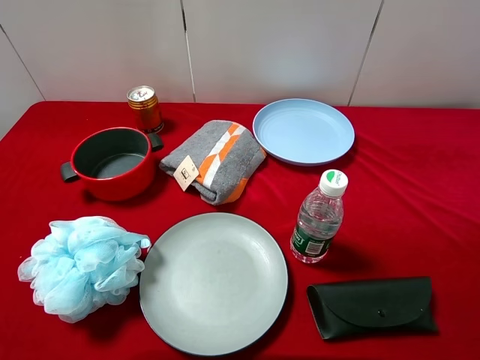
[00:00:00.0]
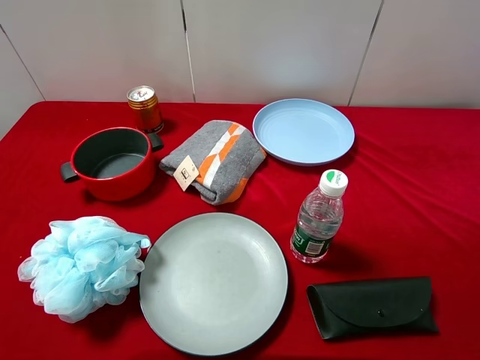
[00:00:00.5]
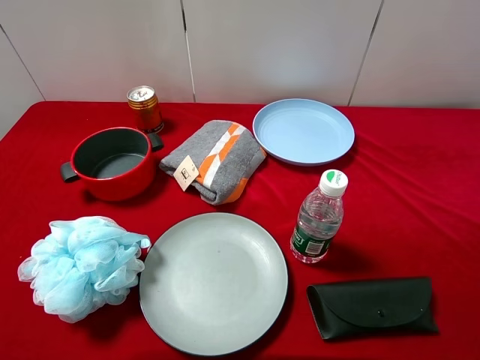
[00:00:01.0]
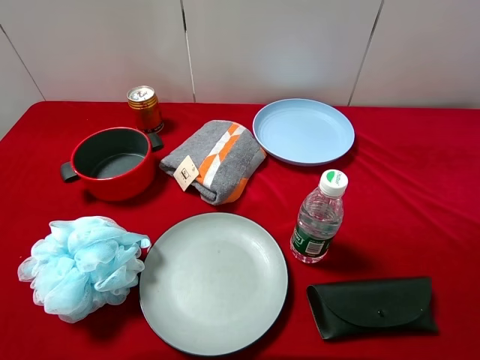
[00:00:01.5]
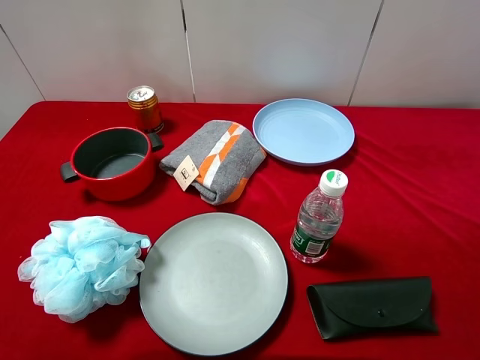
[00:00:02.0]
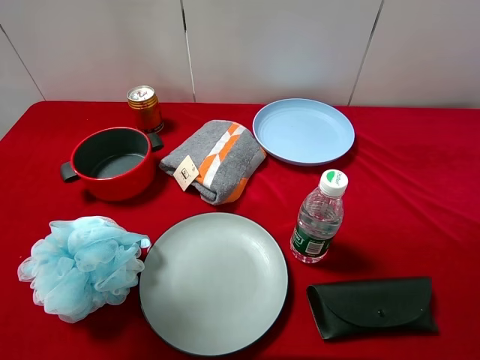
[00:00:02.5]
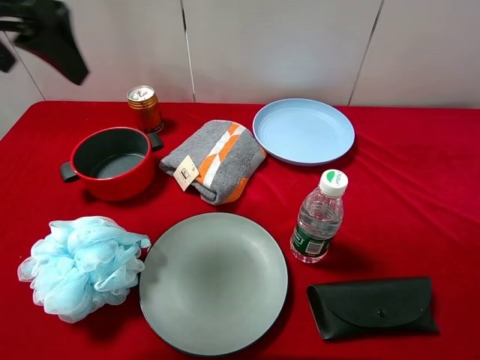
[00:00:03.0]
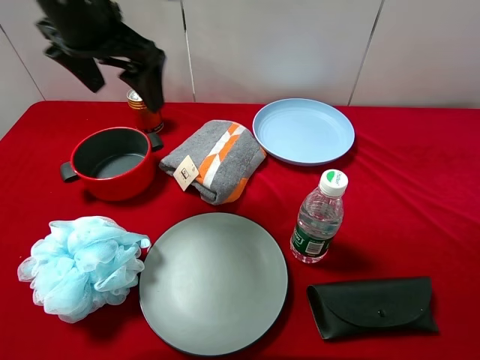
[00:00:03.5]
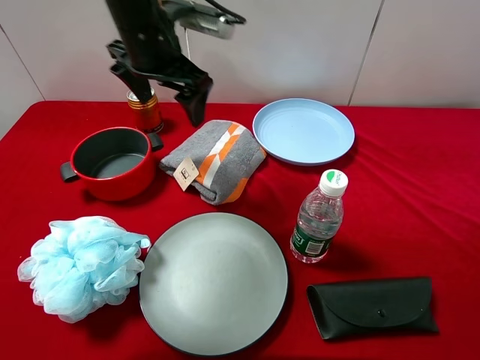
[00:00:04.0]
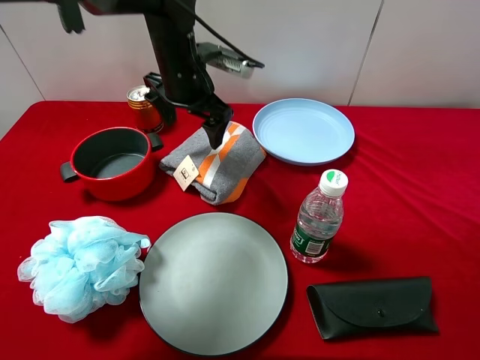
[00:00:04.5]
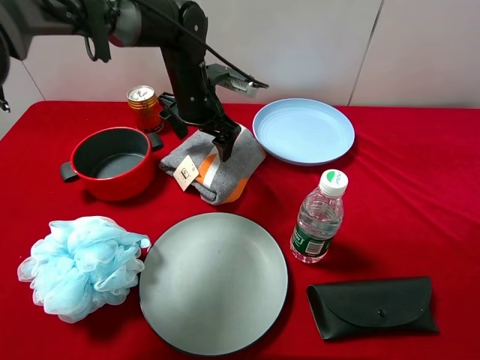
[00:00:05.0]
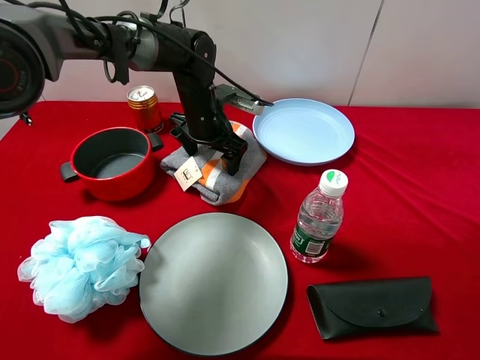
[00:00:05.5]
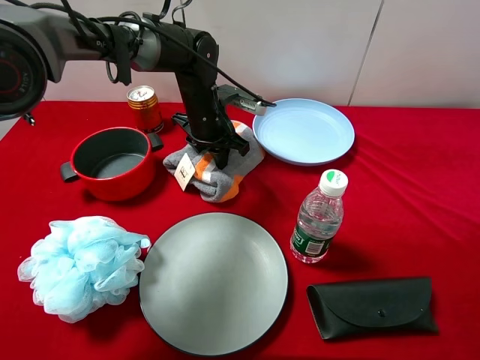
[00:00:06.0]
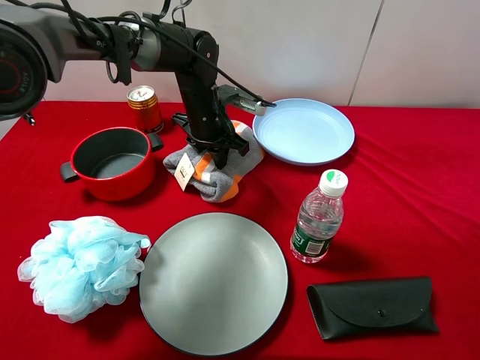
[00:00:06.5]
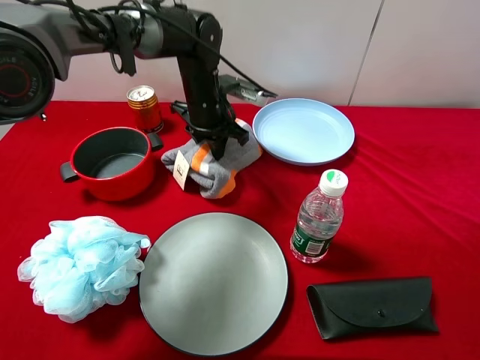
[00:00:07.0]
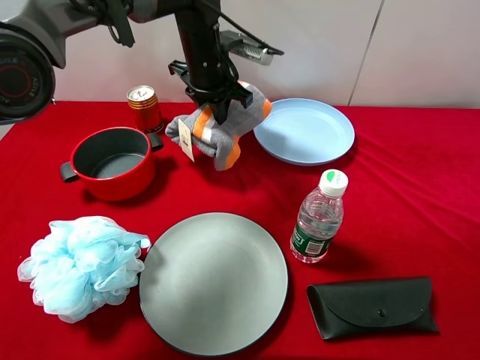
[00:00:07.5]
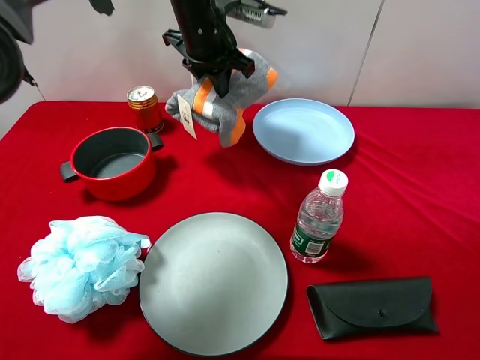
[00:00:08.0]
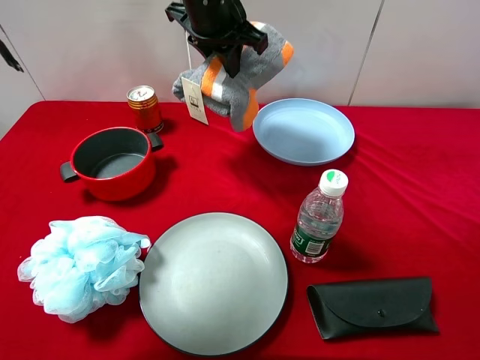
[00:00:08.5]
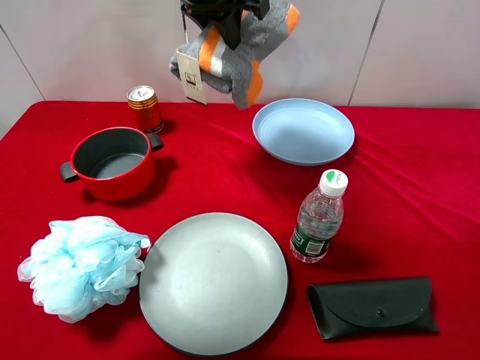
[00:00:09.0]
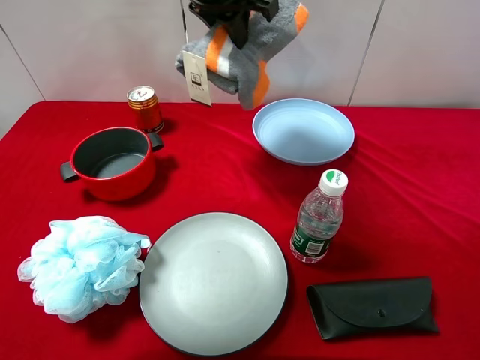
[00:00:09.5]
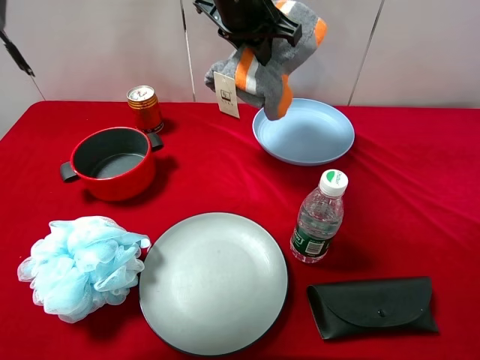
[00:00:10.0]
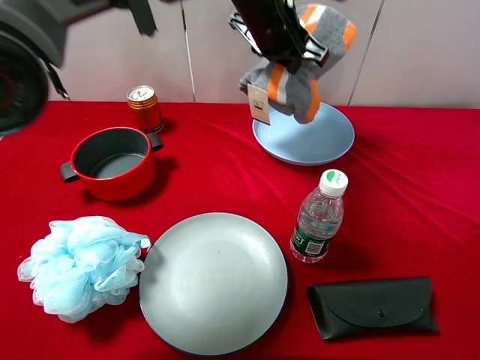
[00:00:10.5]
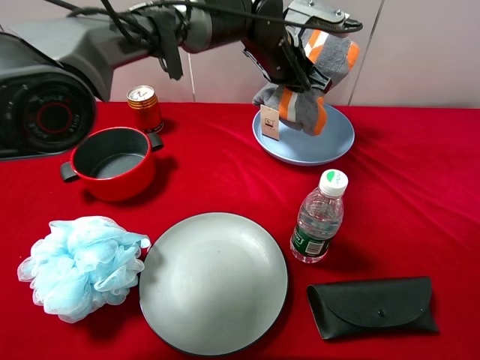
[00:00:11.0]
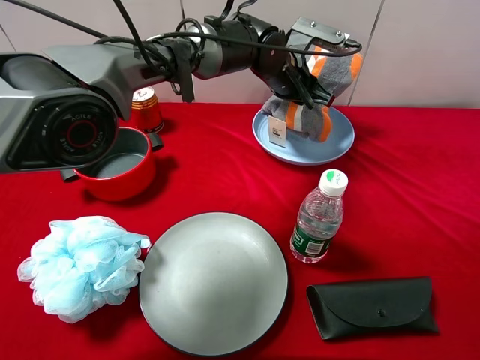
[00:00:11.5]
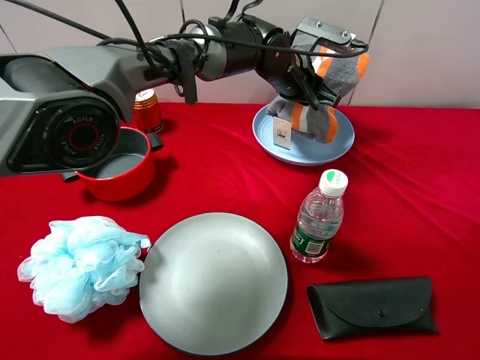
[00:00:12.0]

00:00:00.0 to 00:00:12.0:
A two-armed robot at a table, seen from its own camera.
Task of the whole recording: pick up an item with a gripper and place it in a random container on the desktop.
00:00:02.0 to 00:00:04.0: The left gripper is displaced forward, to the right and downward by approximately 35 cm.
00:00:04.0 to 00:00:06.0: The left gripper goes roughly 15 cm downward, and closes up.
00:00:06.0 to 00:00:08.0: The left gripper is displaced upward by approximately 15 cm.
00:00:08.0 to 00:00:10.0: The left gripper shifts by approximately 5 cm.
00:00:10.0 to 00:00:12.0: The left gripper shifts some 15 cm downward and to the right.

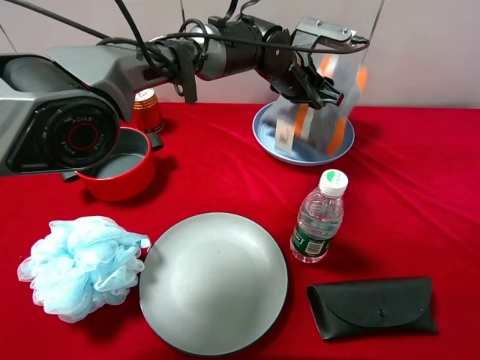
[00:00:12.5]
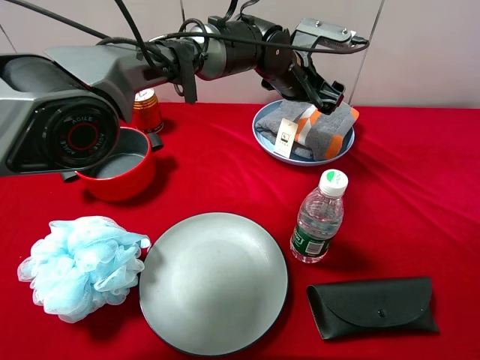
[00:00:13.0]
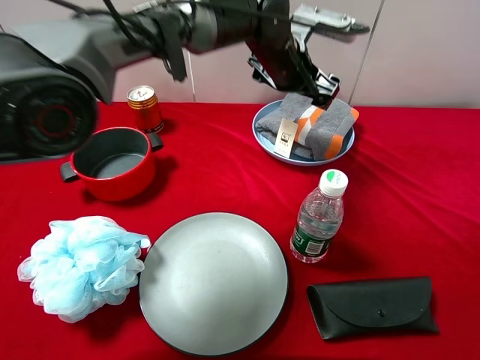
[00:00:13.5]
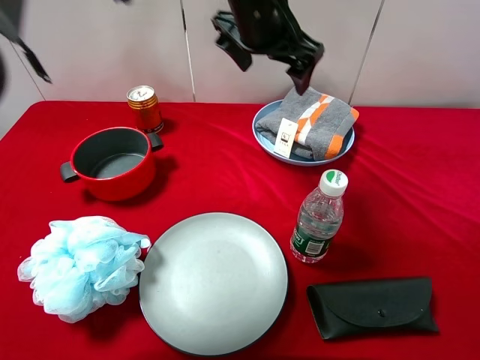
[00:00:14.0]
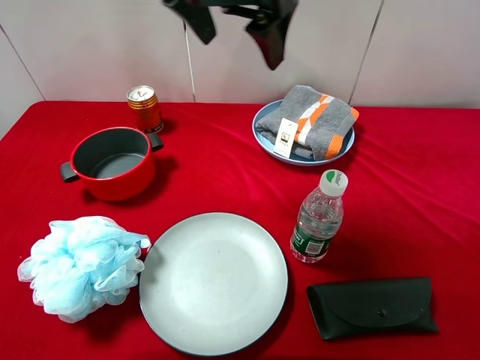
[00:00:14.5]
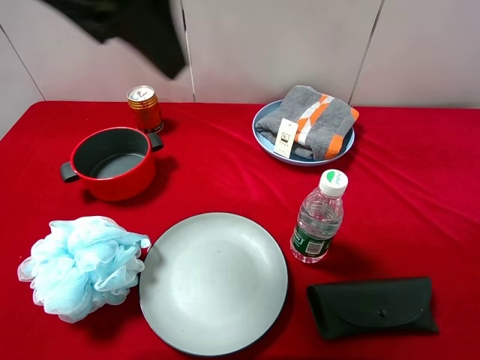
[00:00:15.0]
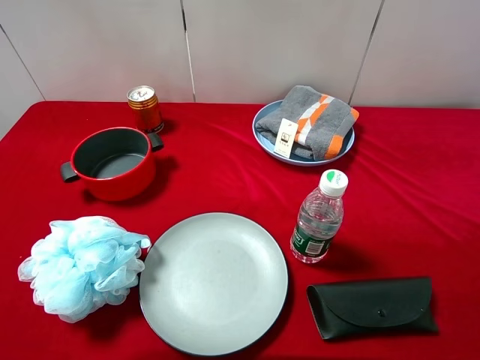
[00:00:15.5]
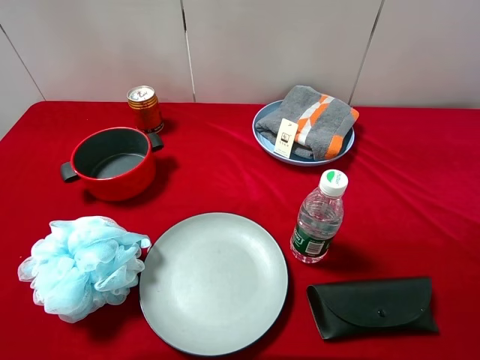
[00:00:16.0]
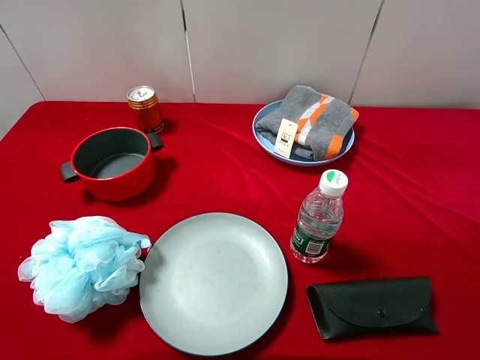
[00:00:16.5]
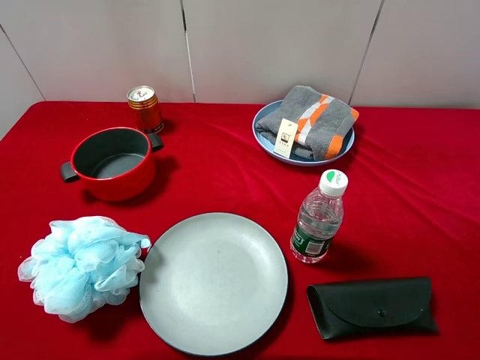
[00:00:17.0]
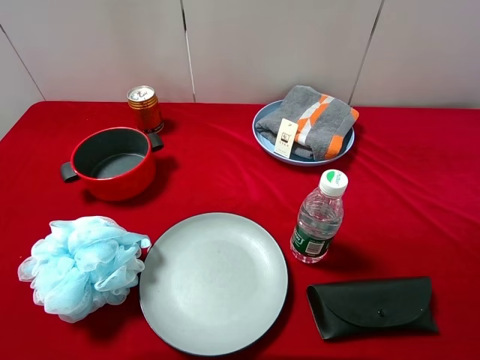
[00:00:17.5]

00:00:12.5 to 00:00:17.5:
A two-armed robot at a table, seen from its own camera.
Task of the whole recording: pick up an item with a gripper and place it in a random container on the desktop.
00:00:12.5 to 00:00:15.0: The left gripper moves backward, upward and to the left, roughly 40 cm, and opens its fingers.
00:00:15.0 to 00:00:17.5: The left gripper goes roughly 30 cm backward, to the left and downward.

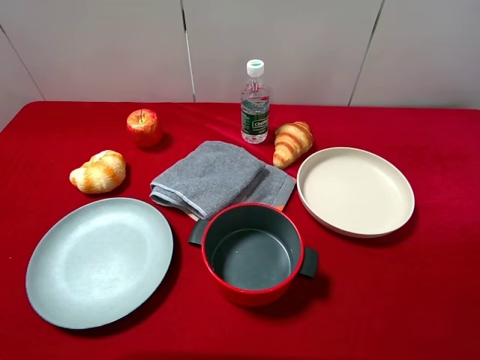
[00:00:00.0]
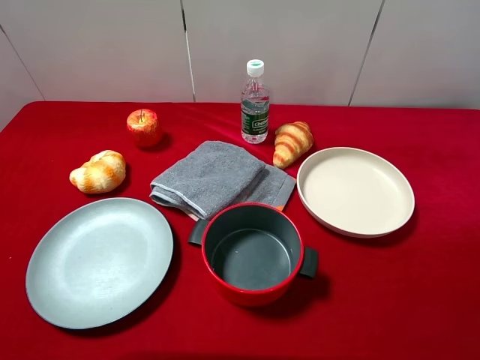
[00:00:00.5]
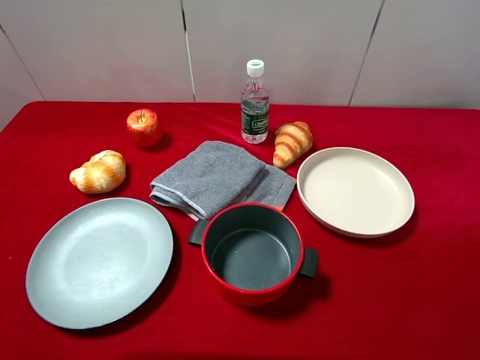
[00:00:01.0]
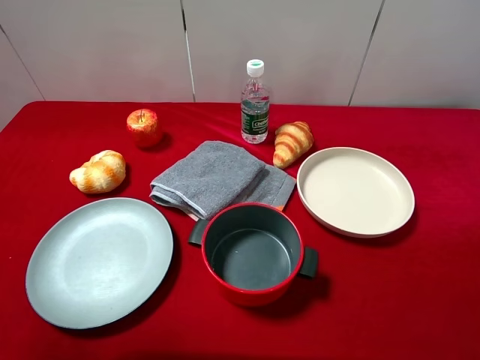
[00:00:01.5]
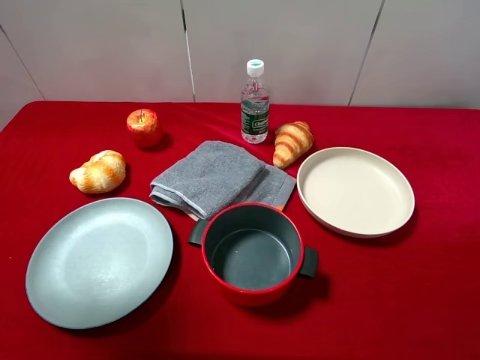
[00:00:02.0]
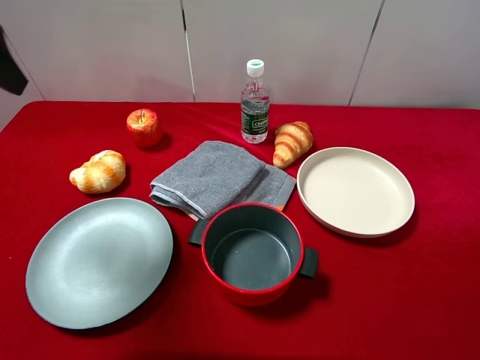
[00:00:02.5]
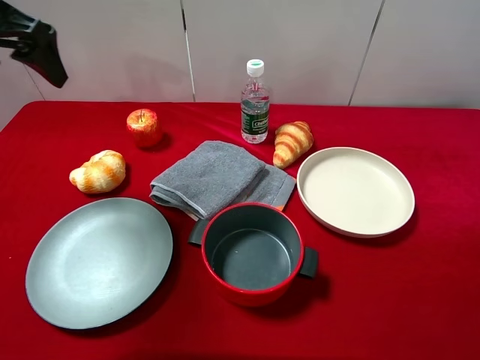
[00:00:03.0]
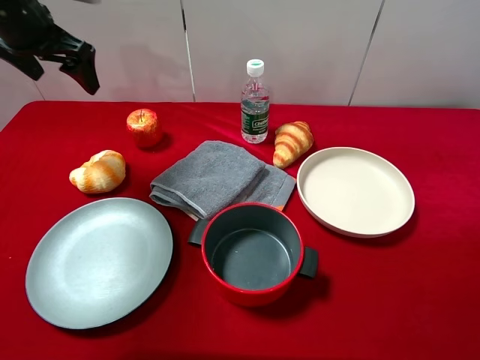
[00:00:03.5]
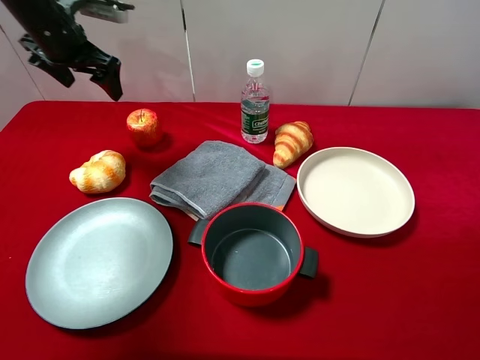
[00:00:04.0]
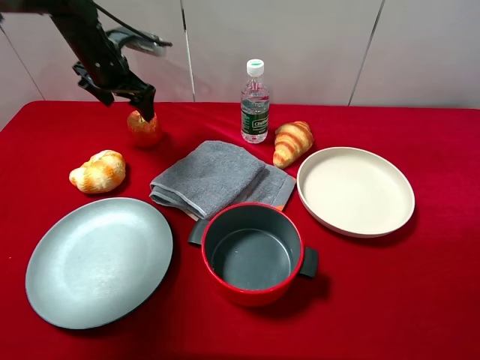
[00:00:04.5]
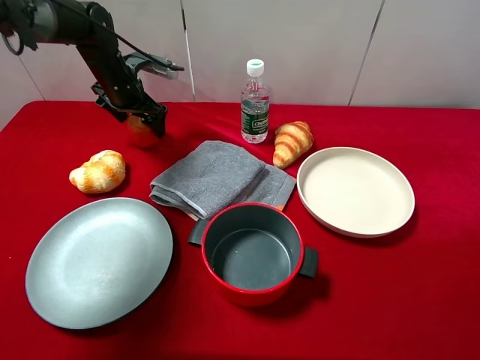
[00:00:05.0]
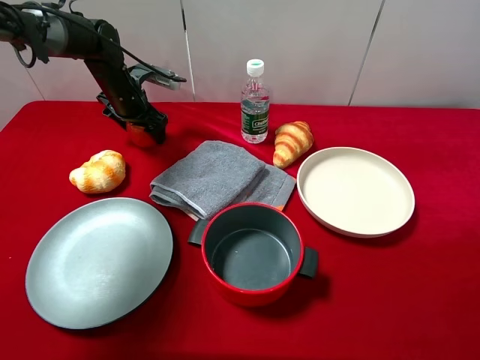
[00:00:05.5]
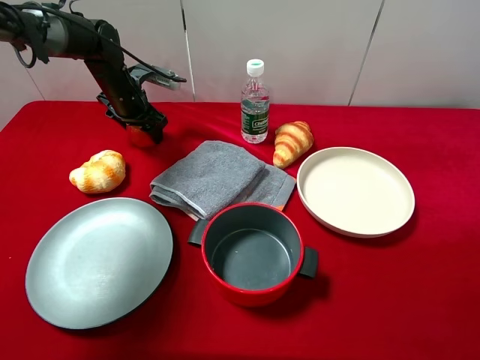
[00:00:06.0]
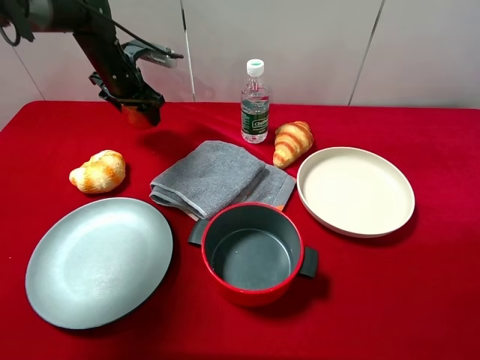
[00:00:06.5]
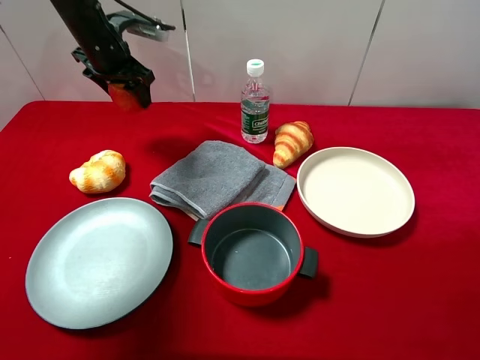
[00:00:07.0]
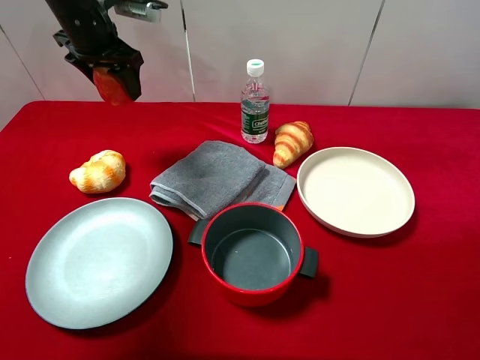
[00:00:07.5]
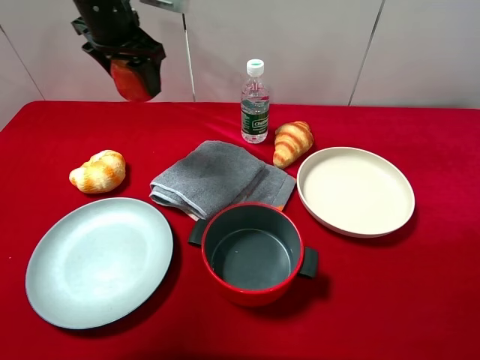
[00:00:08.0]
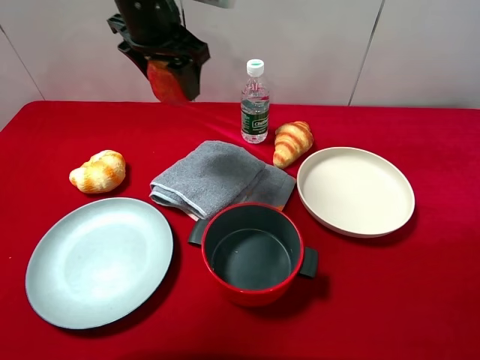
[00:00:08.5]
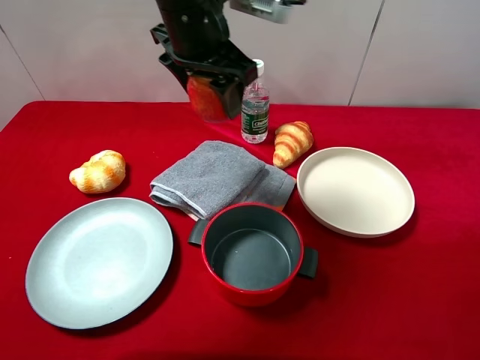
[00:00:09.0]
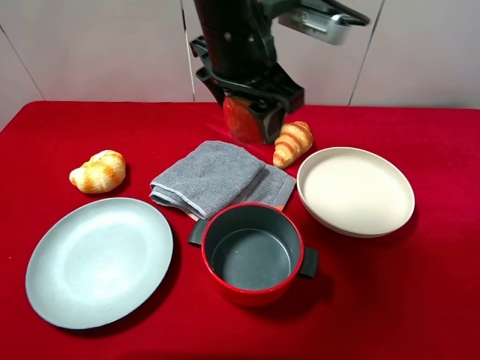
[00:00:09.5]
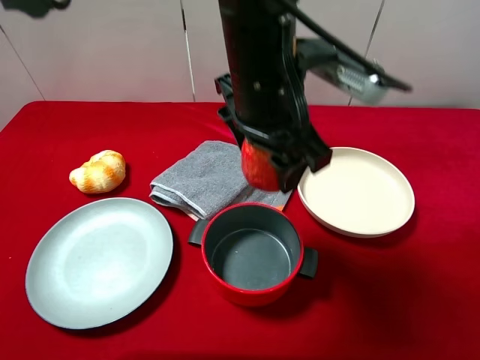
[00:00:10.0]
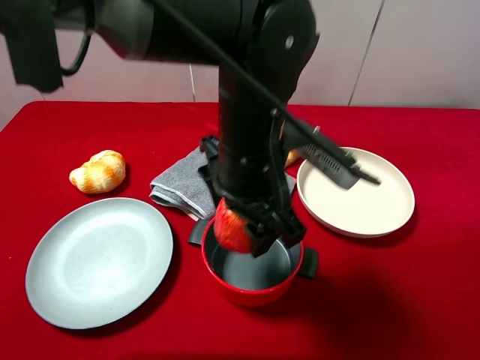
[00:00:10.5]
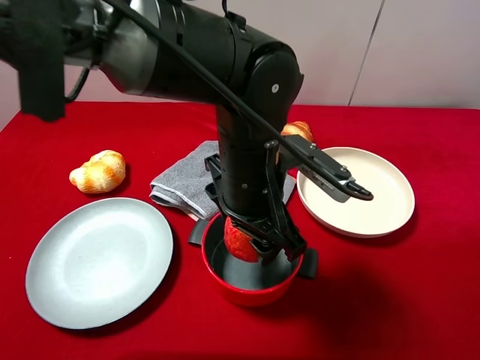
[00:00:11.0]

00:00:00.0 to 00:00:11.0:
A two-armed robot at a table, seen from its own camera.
Task of the whole recording: pick up an item with a gripper and place it in a random container on the desktop.
00:00:00.0 to 00:00:02.0: The left gripper heads forward and upward, covering approximately 20 cm.
00:00:02.0 to 00:00:03.5: The left gripper shifts about 20 cm forward.
00:00:03.5 to 00:00:05.5: The left gripper is displaced downward and forward by roughly 20 cm, and closes.
00:00:05.5 to 00:00:07.5: The left gripper moves upward, approximately 15 cm.
00:00:07.5 to 00:00:09.0: The left gripper goes approximately 20 cm to the right and backward.
00:00:09.0 to 00:00:11.0: The left gripper moves backward, downward and to the right, some 20 cm.
